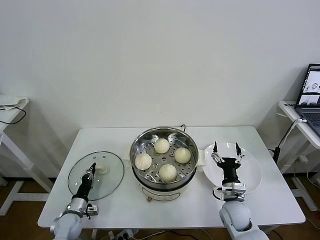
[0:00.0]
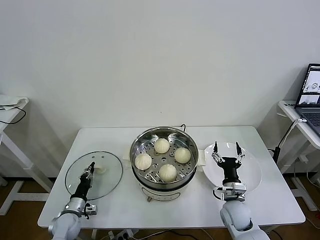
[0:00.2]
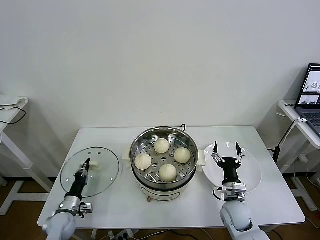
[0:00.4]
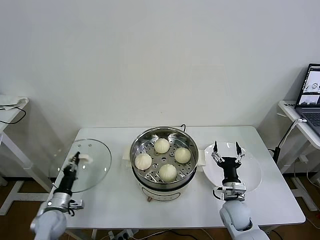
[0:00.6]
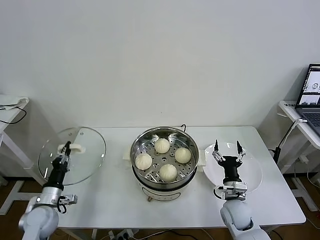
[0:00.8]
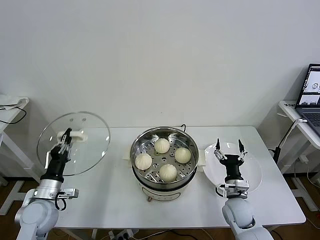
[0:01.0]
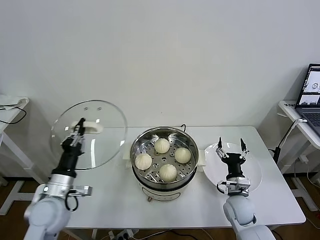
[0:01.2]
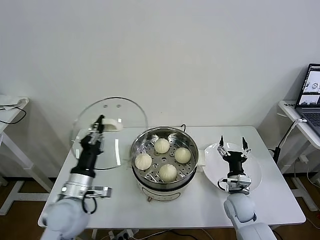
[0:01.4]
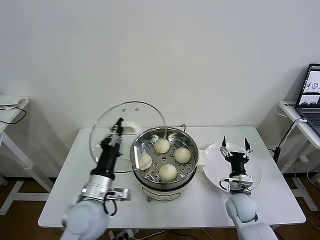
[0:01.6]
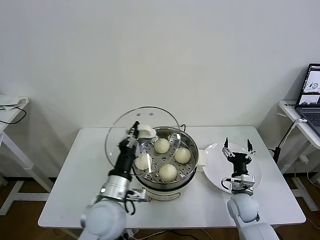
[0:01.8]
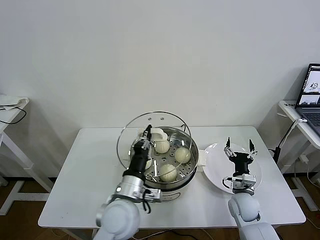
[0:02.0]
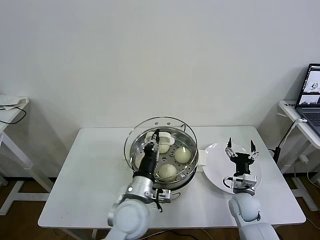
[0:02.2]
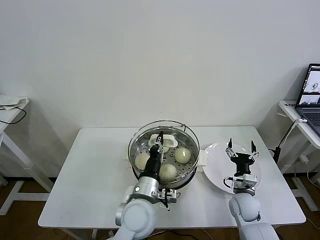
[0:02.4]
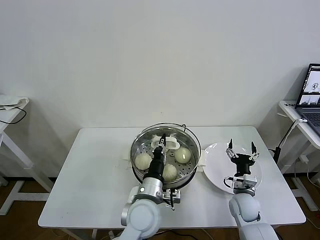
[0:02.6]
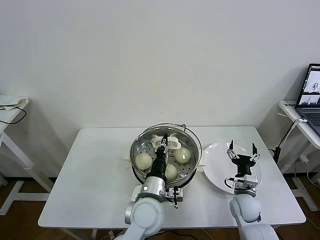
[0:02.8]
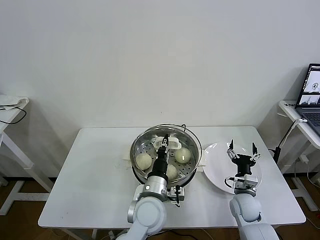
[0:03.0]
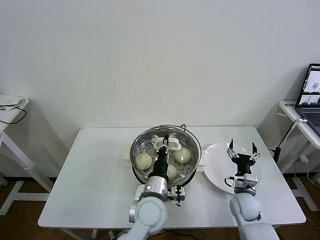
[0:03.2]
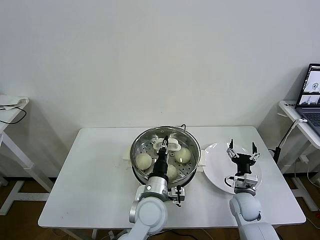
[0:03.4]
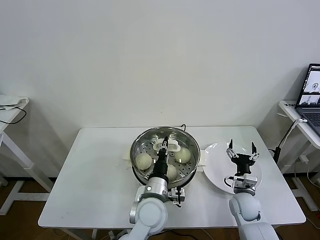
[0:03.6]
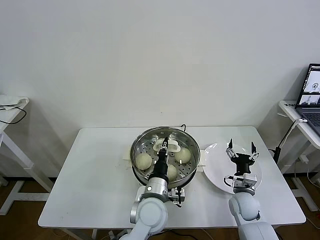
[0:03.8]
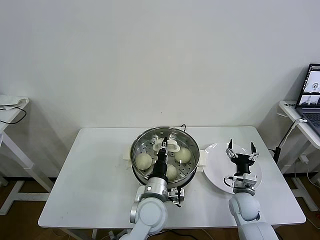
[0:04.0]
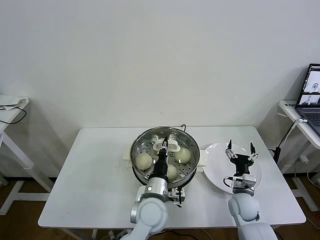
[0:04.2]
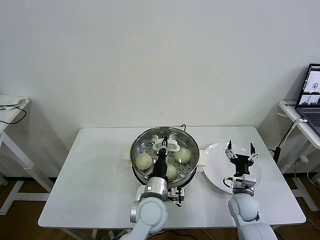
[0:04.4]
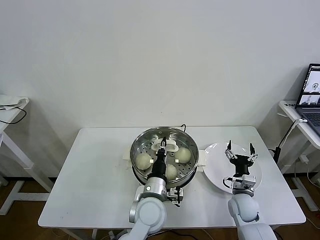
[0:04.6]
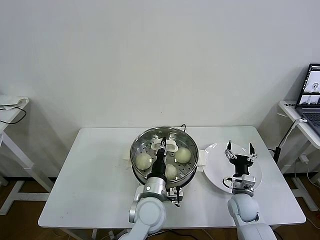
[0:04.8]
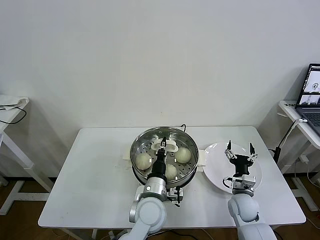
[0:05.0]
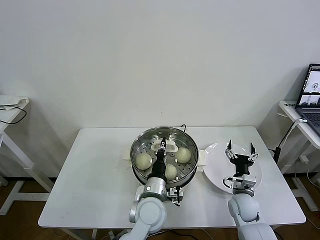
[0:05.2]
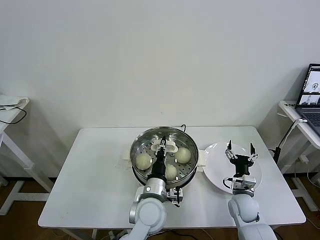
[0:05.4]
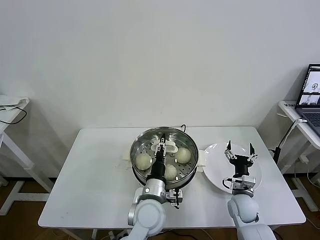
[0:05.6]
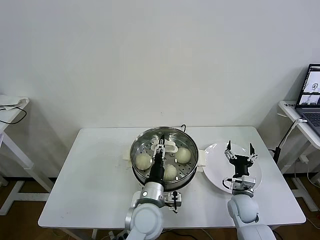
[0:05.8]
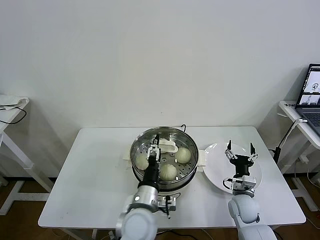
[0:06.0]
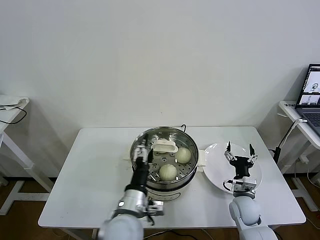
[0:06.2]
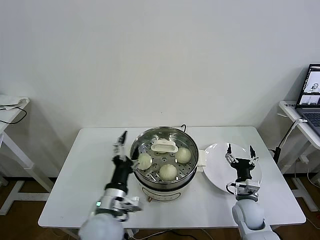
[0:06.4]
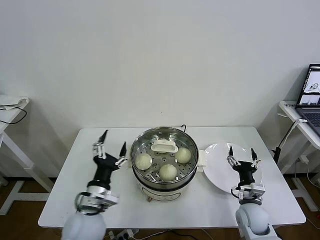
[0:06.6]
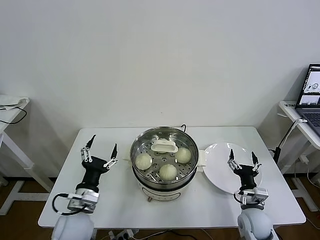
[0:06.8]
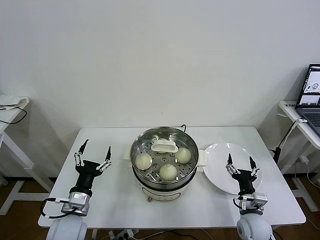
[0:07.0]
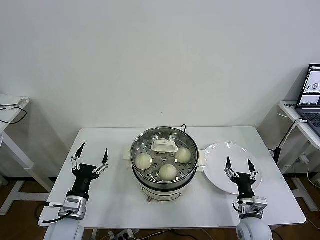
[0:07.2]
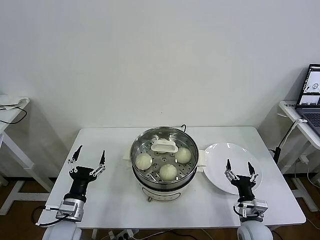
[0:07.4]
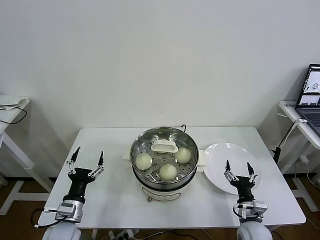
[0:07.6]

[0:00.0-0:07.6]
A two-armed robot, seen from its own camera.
Task of the whole recording: take steamed baozi put them in steamer then cover it.
Step, 0:00.2 to 0:06.0: Place the pot lid on the steamer with left gripper.
0:00.0 to 0:01.6: The left gripper moves upward and to the right, roughly 30 cm.
0:01.6 to 0:03.0: The left gripper is displaced to the right by some 15 cm.
0:03.0 to 0:04.6: There are only small adjustments of the grippers.
0:04.6 to 0:06.0: The left gripper opens up.
0:06.0 to 0:07.6: The right gripper travels backward by some 10 cm, while the left gripper travels to the left by about 25 cm.

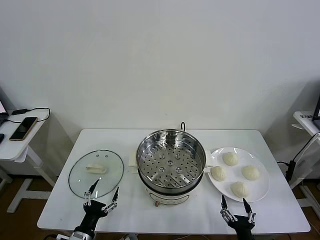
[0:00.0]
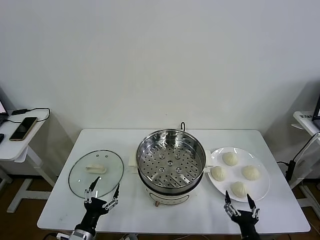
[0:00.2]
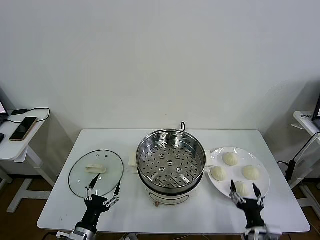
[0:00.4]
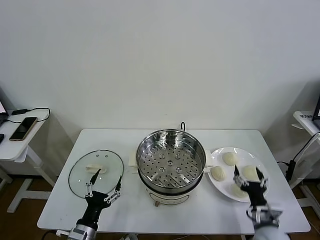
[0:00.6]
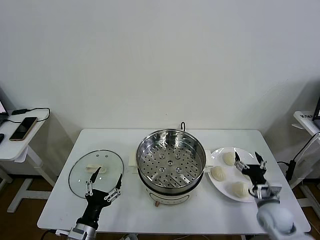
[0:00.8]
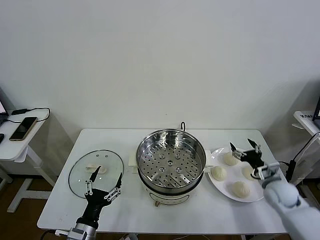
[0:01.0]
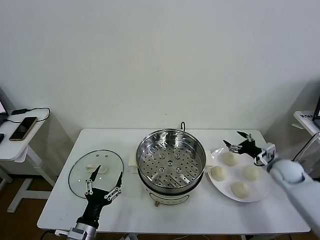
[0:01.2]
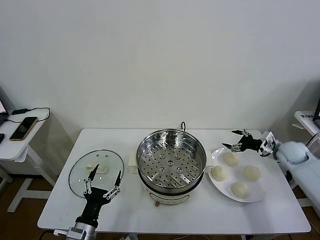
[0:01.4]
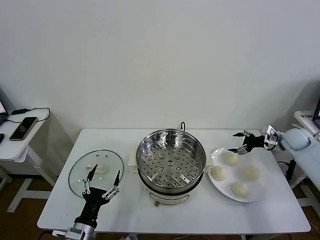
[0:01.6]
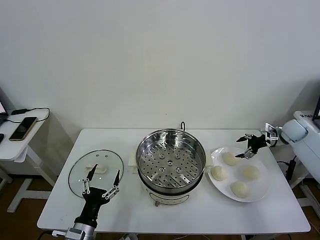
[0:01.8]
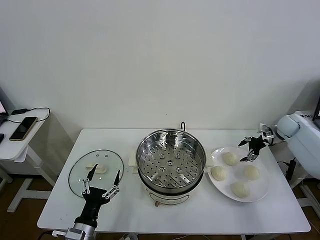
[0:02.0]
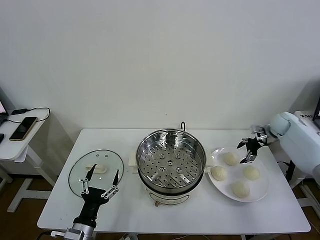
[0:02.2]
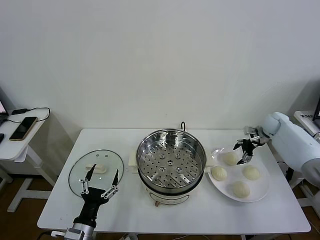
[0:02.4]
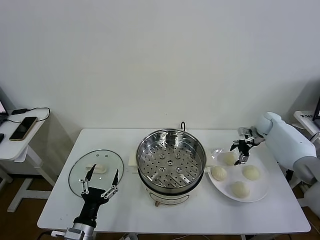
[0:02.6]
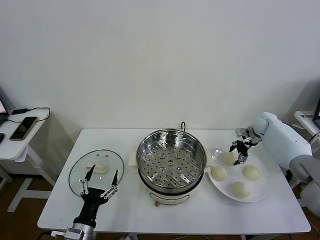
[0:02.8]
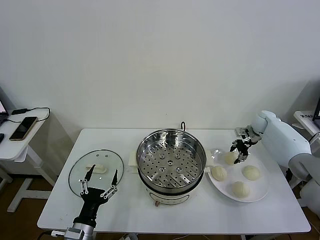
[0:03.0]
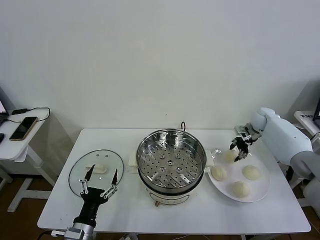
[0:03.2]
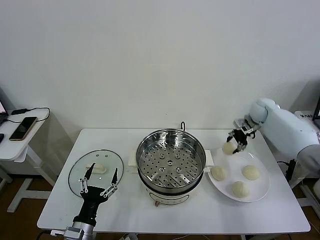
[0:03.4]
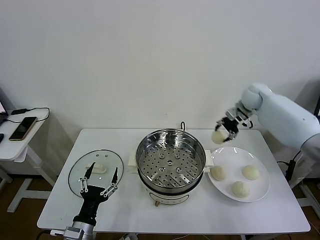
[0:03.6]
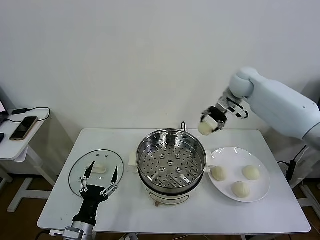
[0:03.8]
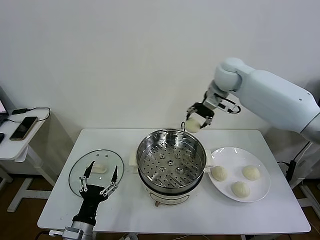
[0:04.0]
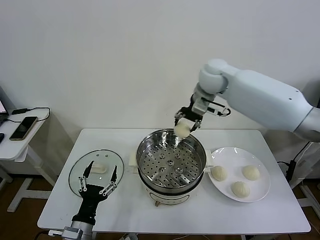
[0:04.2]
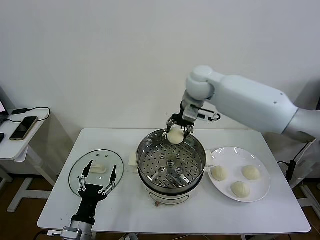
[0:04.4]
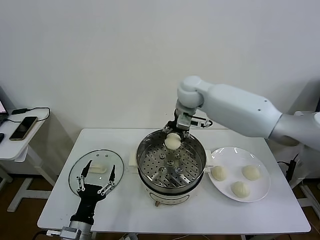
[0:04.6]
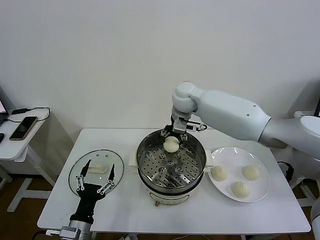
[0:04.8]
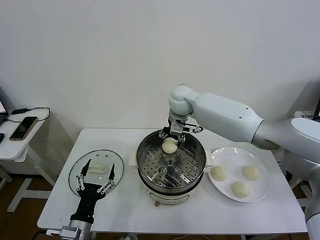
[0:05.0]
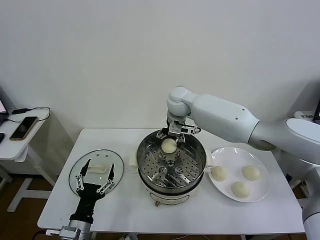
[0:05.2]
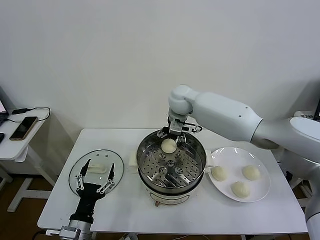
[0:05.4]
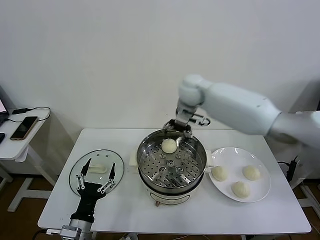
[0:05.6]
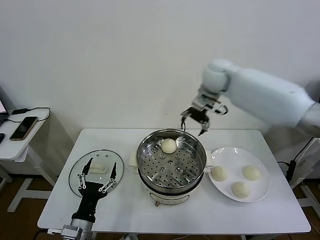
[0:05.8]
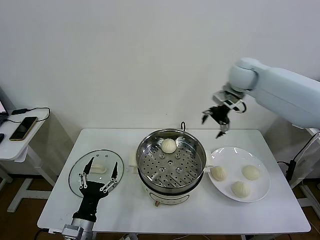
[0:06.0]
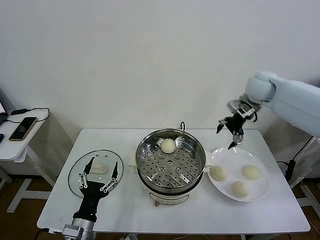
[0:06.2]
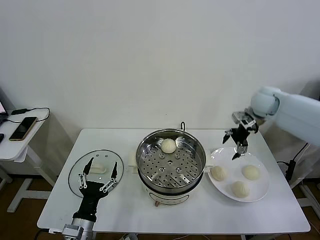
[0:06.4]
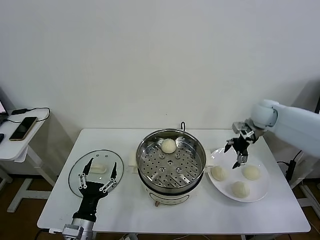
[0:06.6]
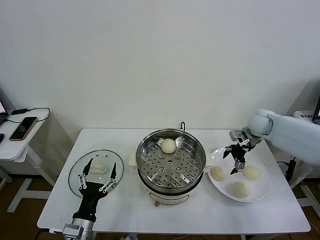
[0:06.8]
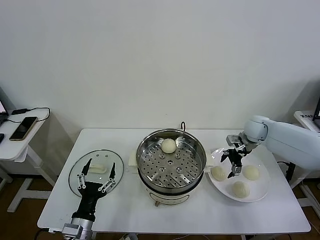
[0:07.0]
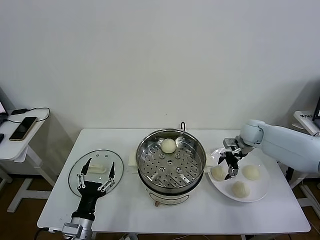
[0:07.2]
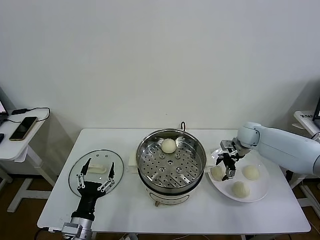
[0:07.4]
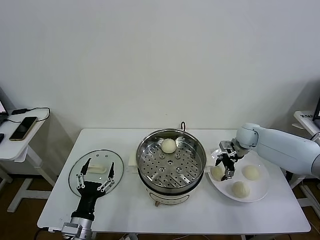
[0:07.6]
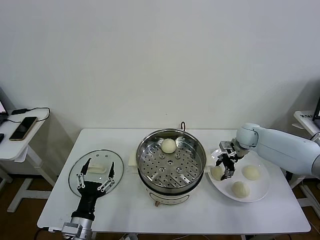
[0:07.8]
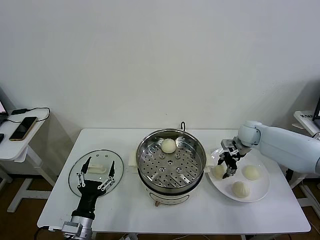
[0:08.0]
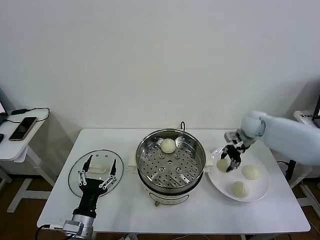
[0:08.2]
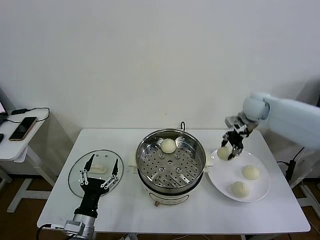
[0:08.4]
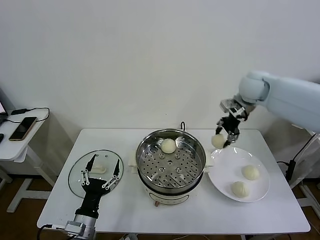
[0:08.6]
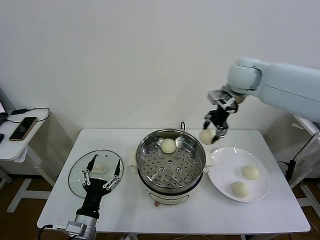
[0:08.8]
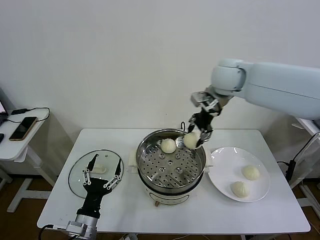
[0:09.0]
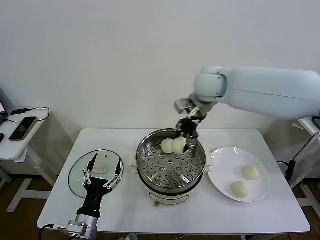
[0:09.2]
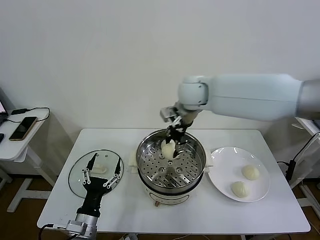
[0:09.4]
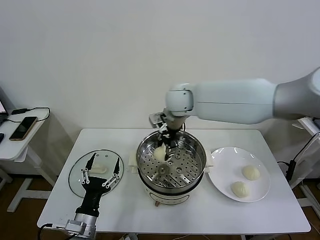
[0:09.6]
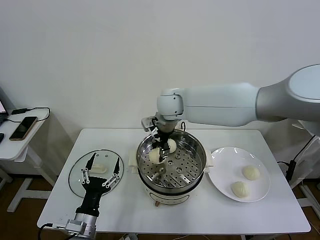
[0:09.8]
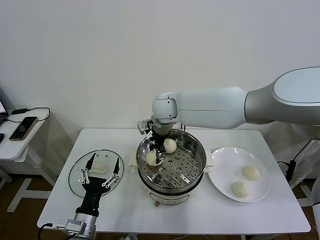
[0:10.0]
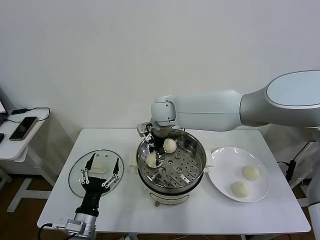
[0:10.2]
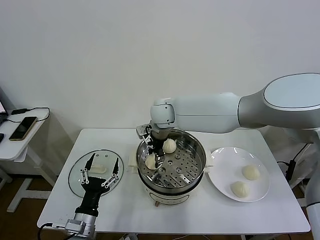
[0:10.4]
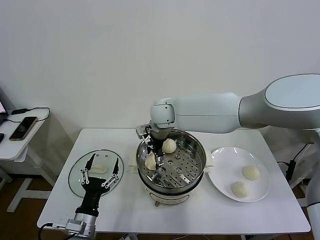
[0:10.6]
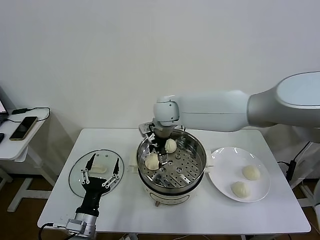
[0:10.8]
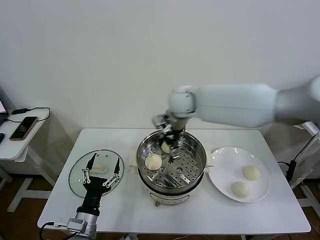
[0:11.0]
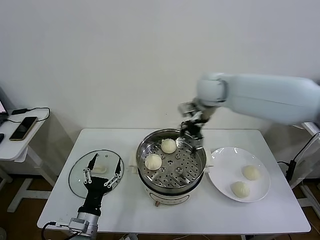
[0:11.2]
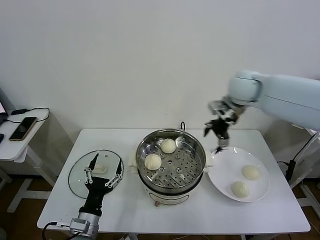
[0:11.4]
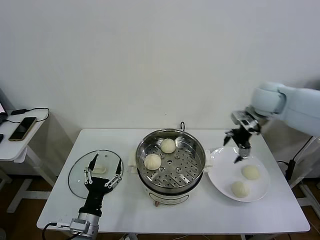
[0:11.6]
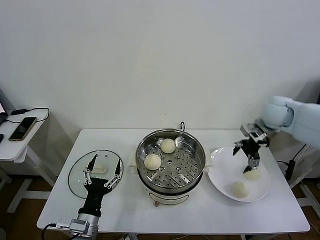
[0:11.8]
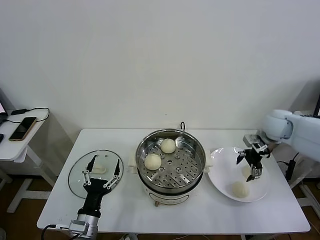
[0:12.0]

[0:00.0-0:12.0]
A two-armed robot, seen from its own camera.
Task of the whole recording: take steamed baozi put them in steamer then cover it.
Step, 0:00.0 to 0:03.0: Grasp the baozi in the plate with right gripper.
Step, 0:03.2 to 0:05.2: Place the baozi on the steamer with right gripper.
Step, 0:05.4 to 0:07.8: Grasp the baozi in the plate with right gripper.
Step, 0:08.0 to 0:10.6: Place the baozi on the steamer with right gripper.
0:01.6 to 0:03.0: The right gripper is displaced forward and to the left by approximately 10 cm, and closes up.
0:03.0 to 0:04.4: The right gripper travels to the left and upward by approximately 35 cm.
0:04.4 to 0:06.0: The right gripper moves to the right, roughly 20 cm, and opens its fingers.
0:06.0 to 0:07.6: The right gripper travels downward by approximately 20 cm, and closes up.
0:07.6 to 0:09.0: The right gripper travels upward and to the left by some 30 cm, and closes its fingers.
0:09.0 to 0:10.4: The right gripper heads to the left and downward, covering roughly 20 cm.
0:10.4 to 0:12.0: The right gripper shifts approximately 40 cm to the right, and opens.

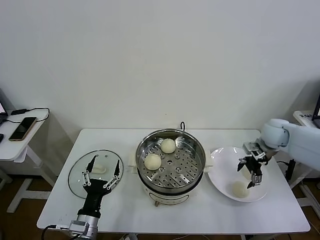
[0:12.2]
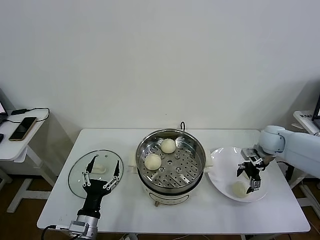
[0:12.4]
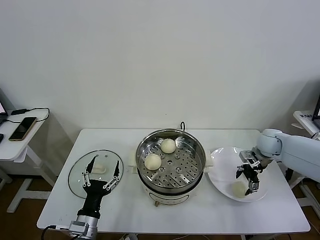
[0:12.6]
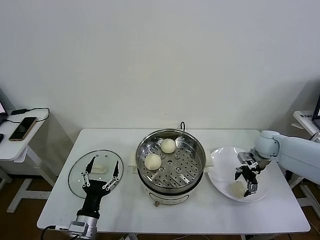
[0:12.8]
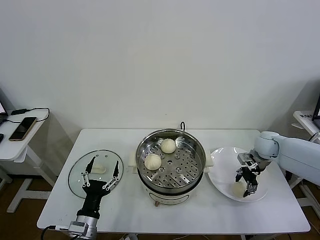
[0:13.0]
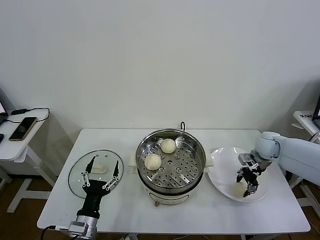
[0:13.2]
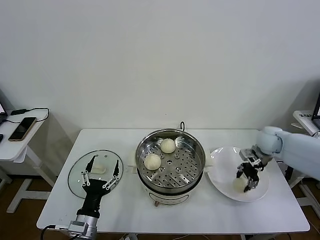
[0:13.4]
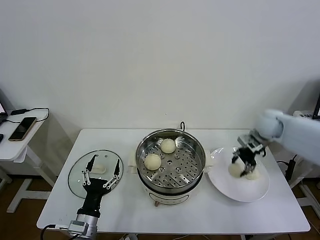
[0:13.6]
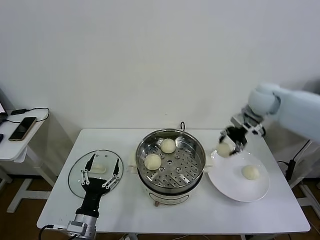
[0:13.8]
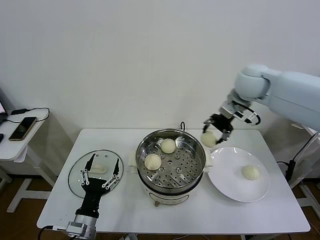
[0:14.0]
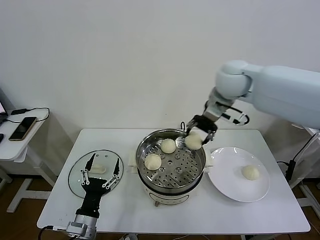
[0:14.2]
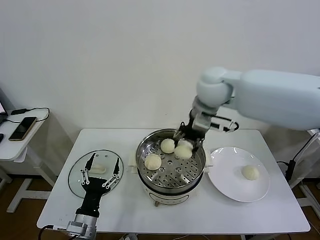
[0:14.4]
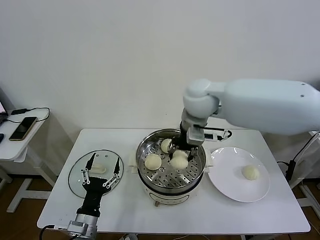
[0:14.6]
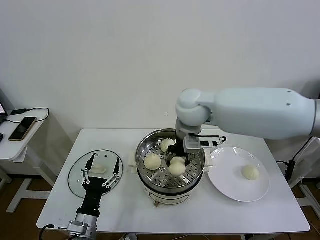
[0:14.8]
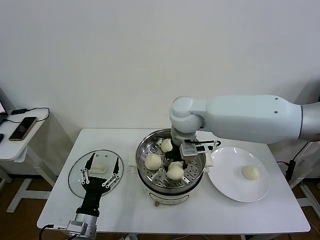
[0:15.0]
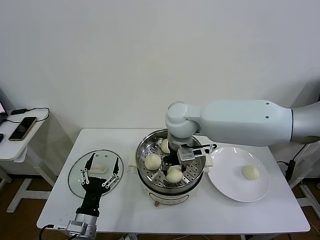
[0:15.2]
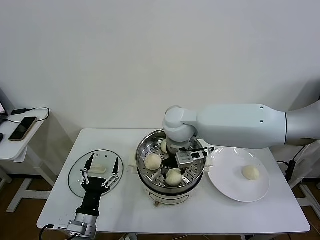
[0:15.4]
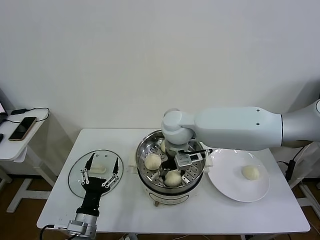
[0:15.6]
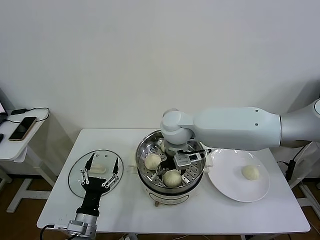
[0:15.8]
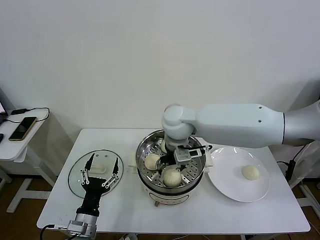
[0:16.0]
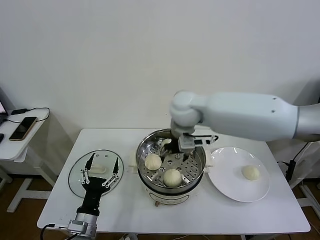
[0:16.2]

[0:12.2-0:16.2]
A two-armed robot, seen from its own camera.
Task of the whole recording: take steamed baozi put them in steamer then cover it.
Step, 0:13.2 to 0:15.8: Place the baozi on the steamer with right gripper.
0:12.2 to 0:13.6: The right gripper travels upward by roughly 5 cm, and closes its fingers.
0:13.6 to 0:14.8: The right gripper travels to the left by about 30 cm.
0:14.8 to 0:16.2: The right gripper opens up.